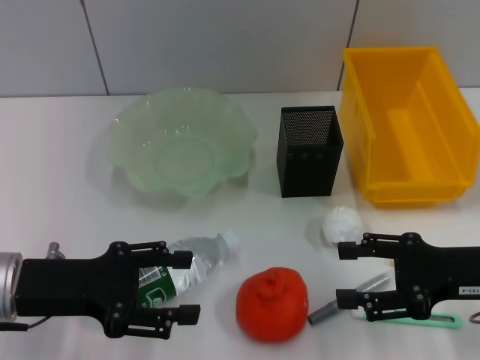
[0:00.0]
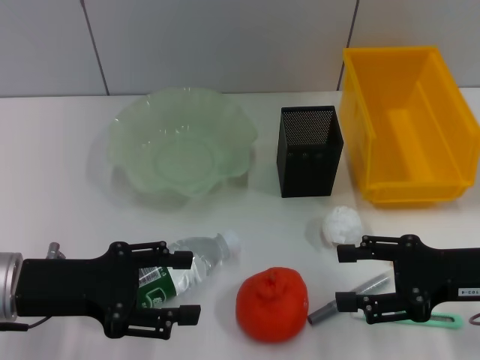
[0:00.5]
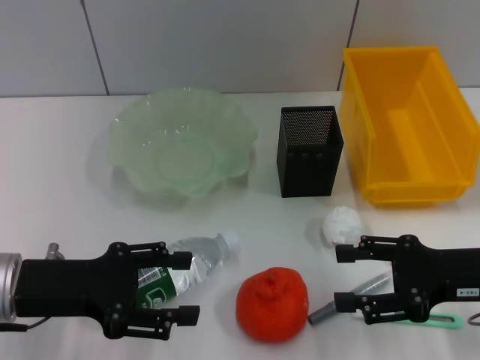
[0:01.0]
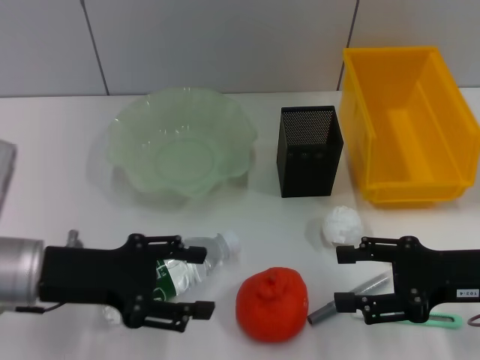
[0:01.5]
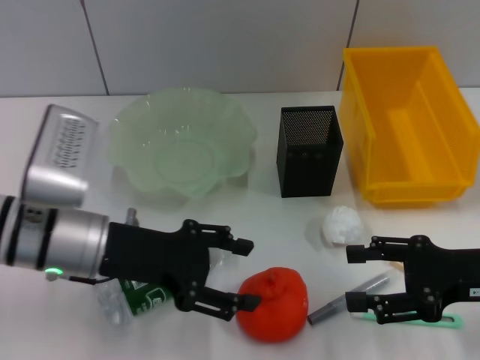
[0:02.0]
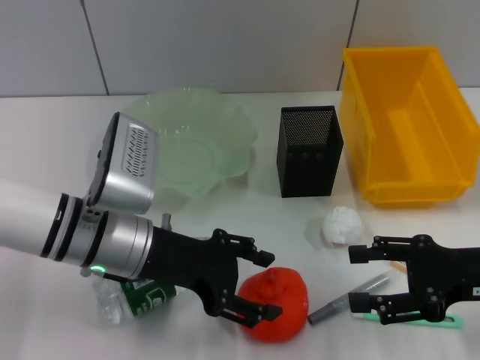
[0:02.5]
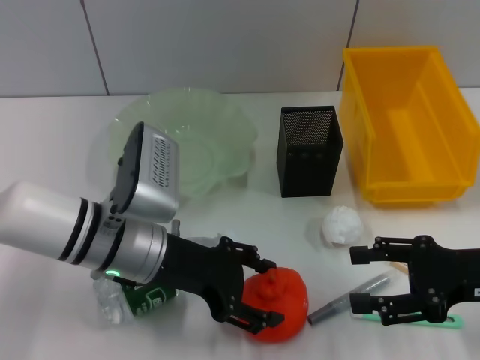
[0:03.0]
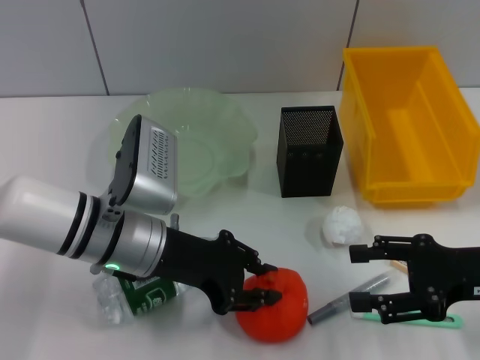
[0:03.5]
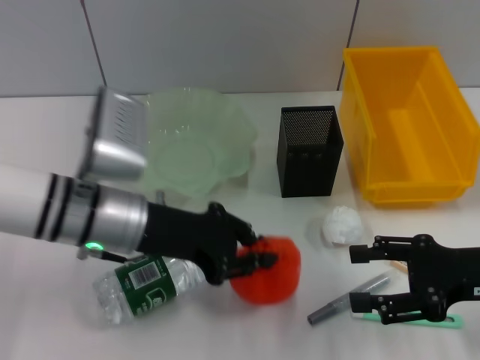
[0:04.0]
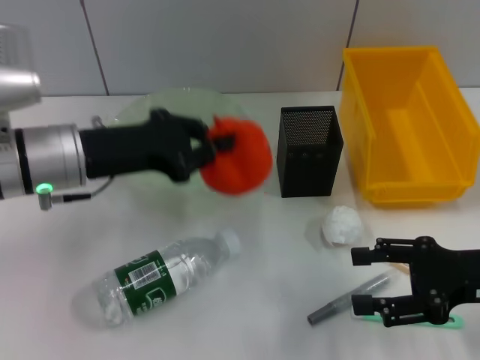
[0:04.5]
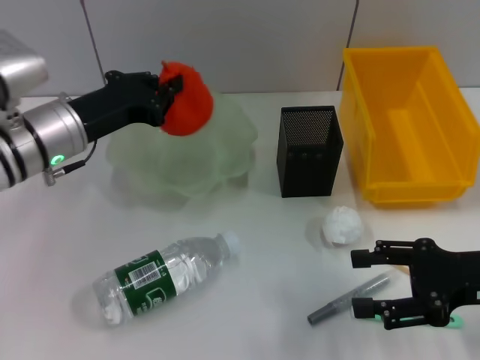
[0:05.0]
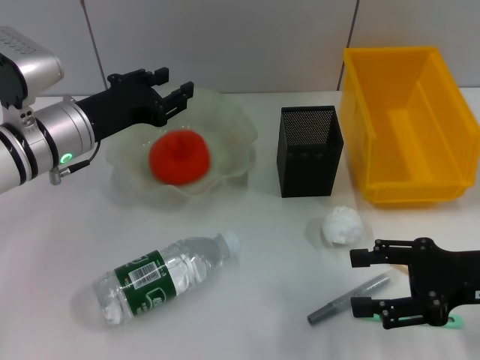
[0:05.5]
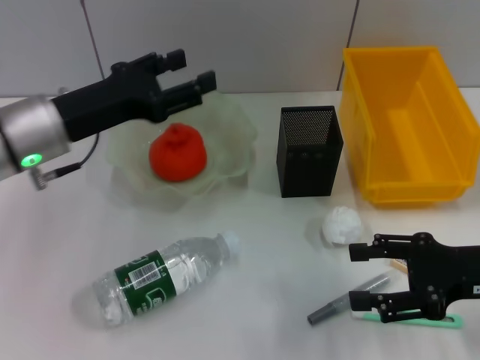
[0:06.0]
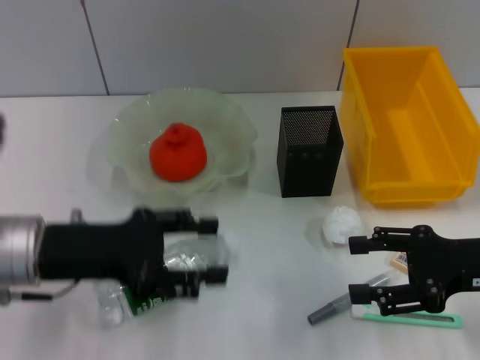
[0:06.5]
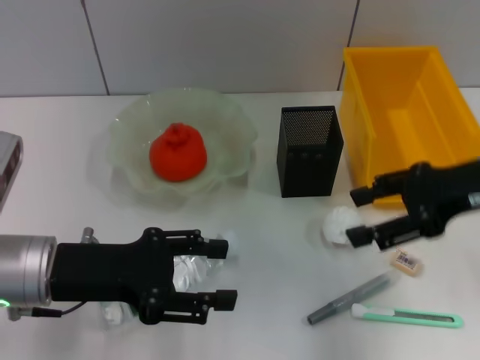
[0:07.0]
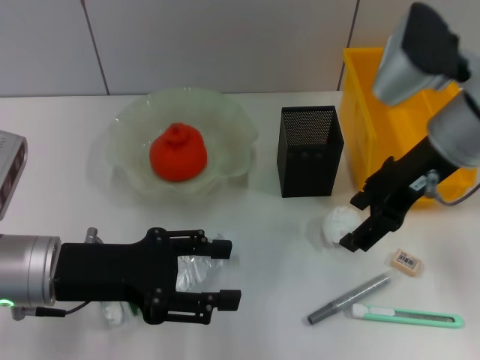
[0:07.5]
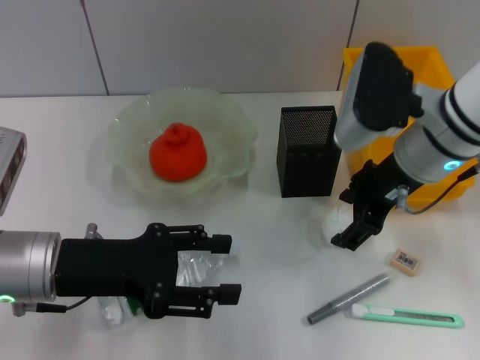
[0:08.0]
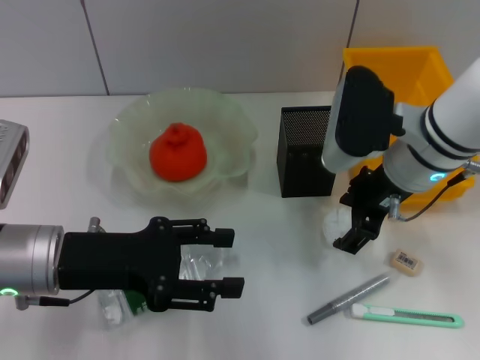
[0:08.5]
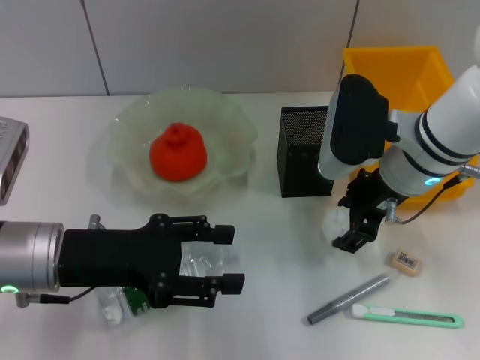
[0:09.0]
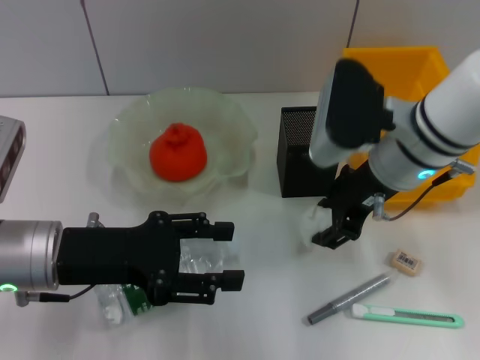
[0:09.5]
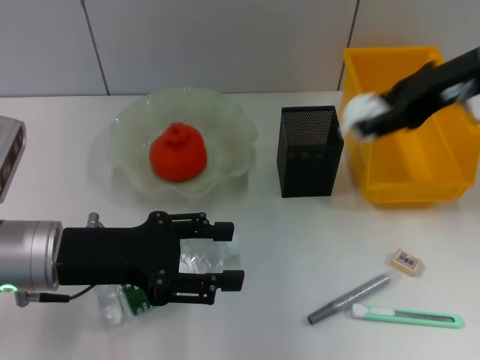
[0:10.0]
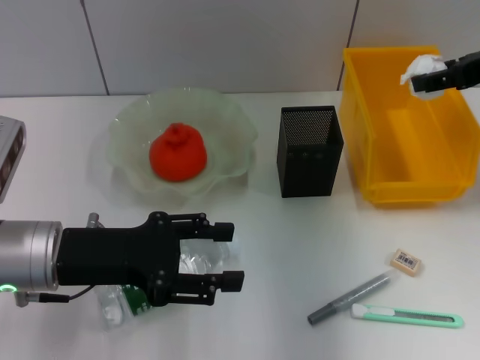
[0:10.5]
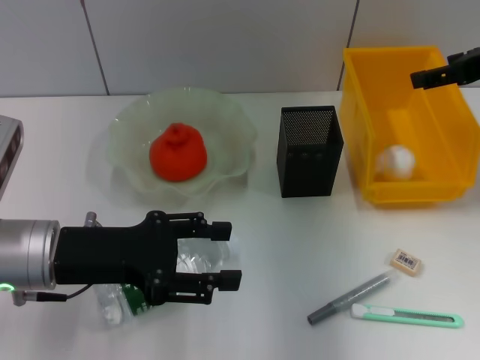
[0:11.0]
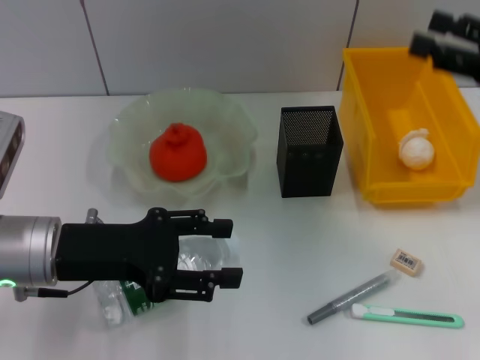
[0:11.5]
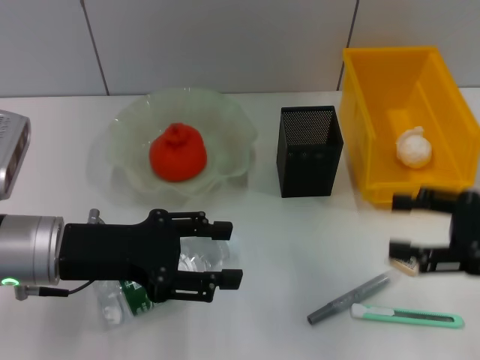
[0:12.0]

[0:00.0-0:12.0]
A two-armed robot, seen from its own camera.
Step, 0:00.0 to 0:03.5: Grab the orange with the left hand.
Step, 0:04.0 to 0:05.5: Place the orange into the fruit bowl with the left hand.
Step, 0:06.0 to 0:09.0: Grab the paper ball with the right hand.
Step, 0:09.5 to 0:11.5: Place the paper ball into the trash can with the right hand.
0:00.0 to 0:02.0: The left gripper shifts roughly 5 cm to the right.
0:02.0 to 0:04.0: The left gripper closes.
0:04.0 to 0:06.0: The left gripper travels to the left by about 5 cm, and opens up.
0:06.0 to 0:08.0: The left gripper moves backward, some 10 cm. The right gripper heads to the left, forward and upward, covering about 20 cm.
0:08.0 to 0:10.0: The right gripper shifts roughly 10 cm upward and to the right.
0:10.0 to 0:12.0: The right gripper is displaced downward, backward and to the right by some 20 cm, and opens up.

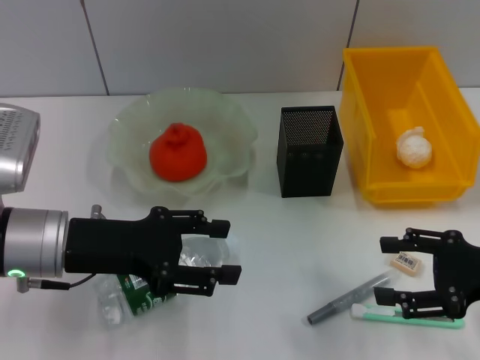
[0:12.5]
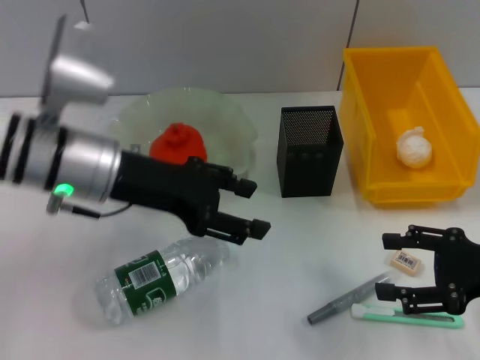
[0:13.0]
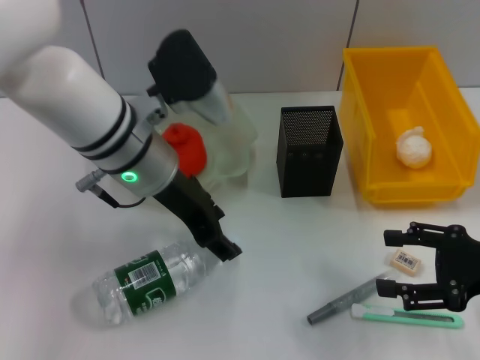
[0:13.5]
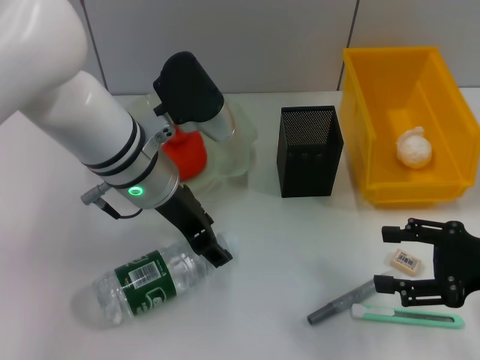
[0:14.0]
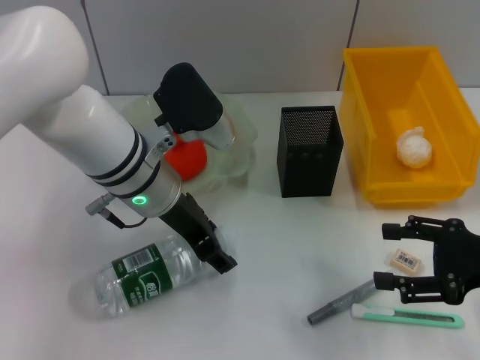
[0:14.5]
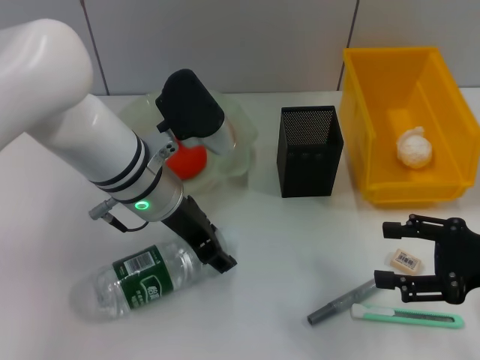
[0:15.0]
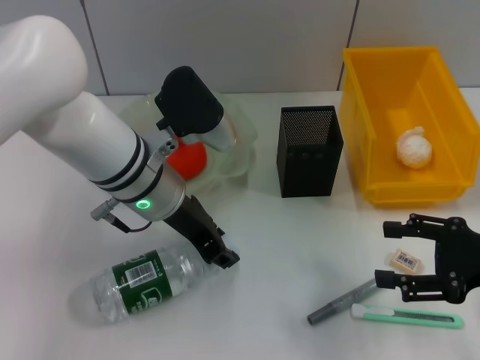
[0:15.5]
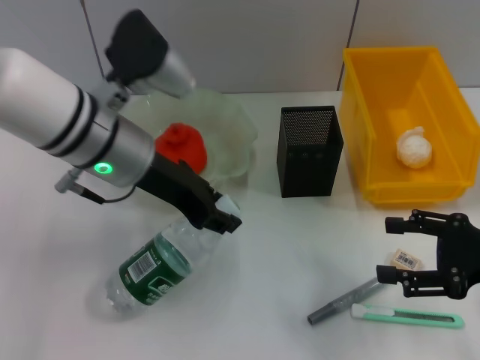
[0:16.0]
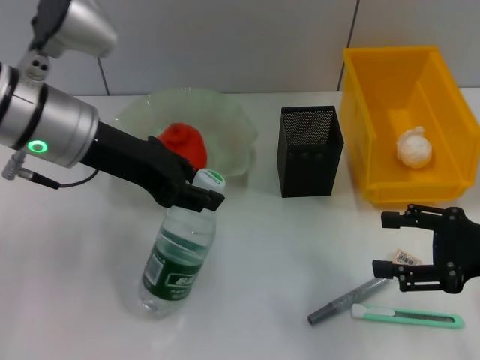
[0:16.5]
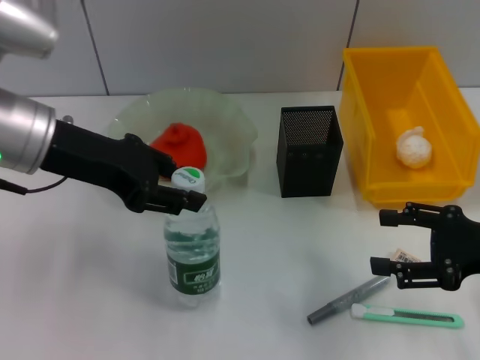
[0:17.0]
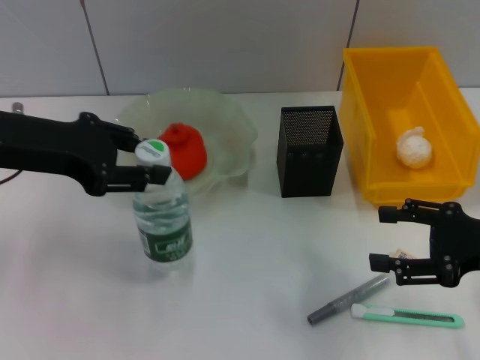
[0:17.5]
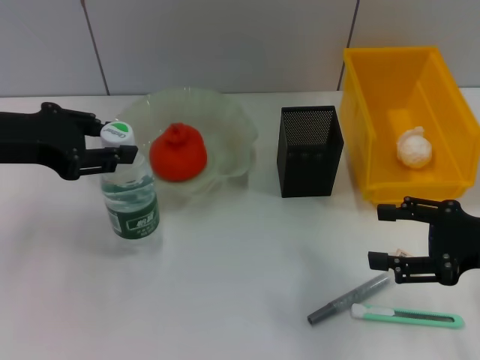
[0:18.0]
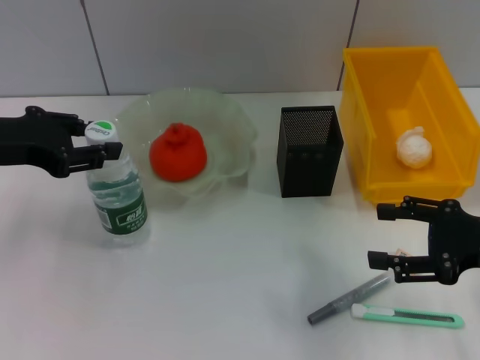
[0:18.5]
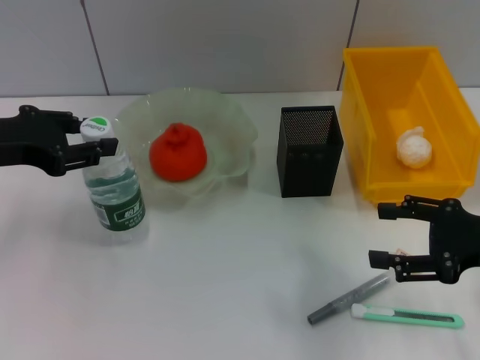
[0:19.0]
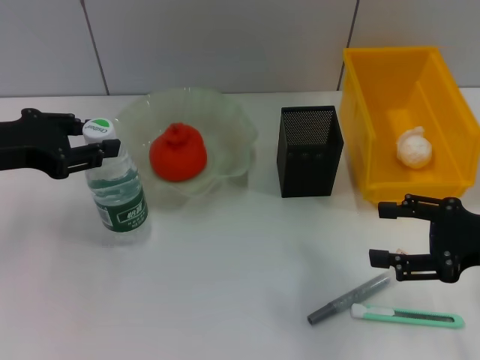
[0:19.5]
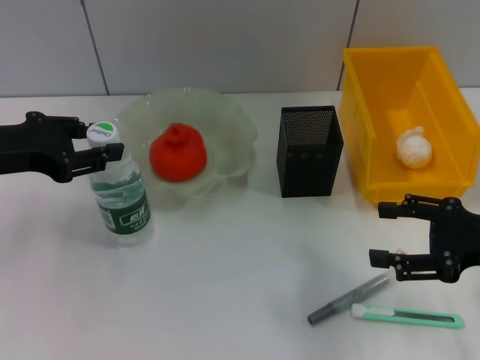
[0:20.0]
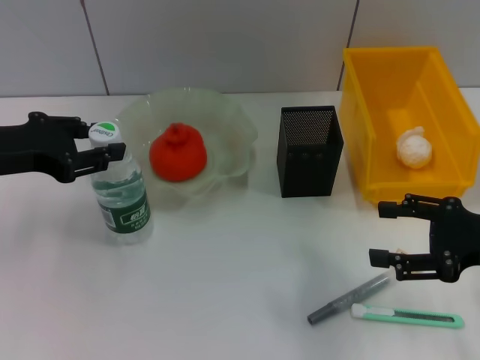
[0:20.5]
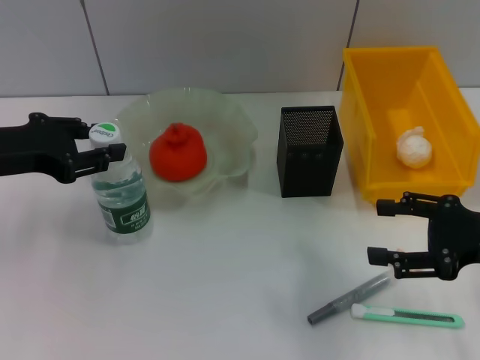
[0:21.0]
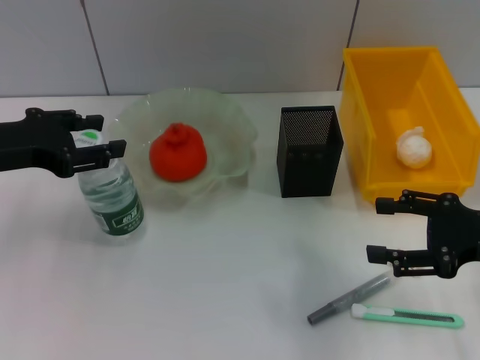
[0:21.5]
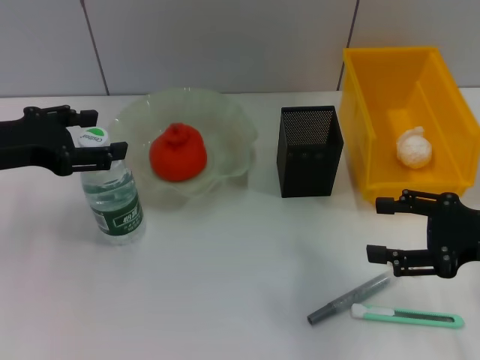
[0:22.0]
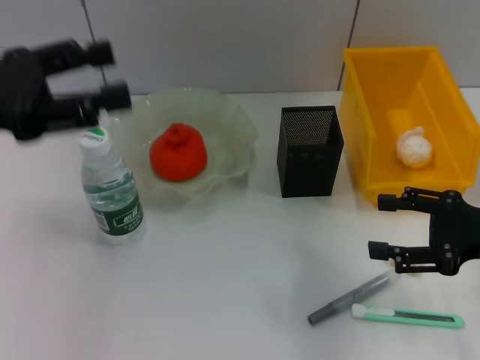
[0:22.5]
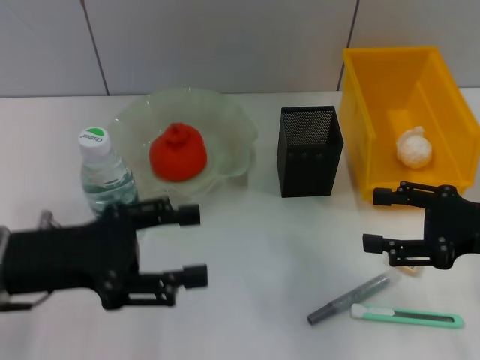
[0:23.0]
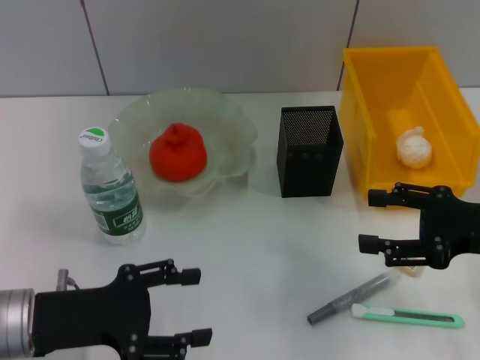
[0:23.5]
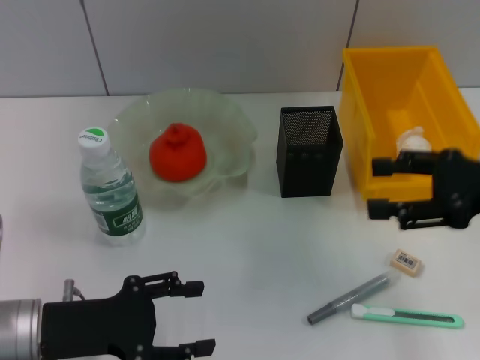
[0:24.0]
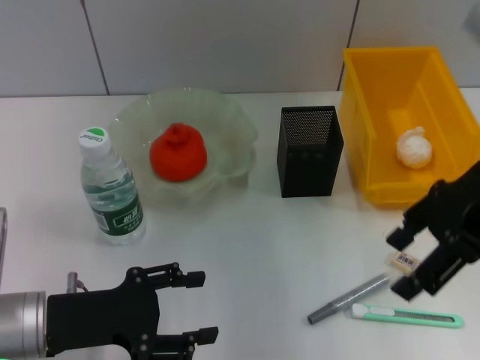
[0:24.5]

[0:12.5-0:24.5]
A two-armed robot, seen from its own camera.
Step, 0:12.5 to 0:15.0: Grab the water bottle with the left hand.
Step, 0:15.5 to 0:21.5: Place the water bottle on the table with the left hand.
0:12.5 to 0:14.5: The left gripper heads to the right and forward, covering approximately 15 cm.
0:14.5 to 0:16.5: The left gripper heads to the left and upward, covering approximately 10 cm.
0:16.5 to 0:18.5: The left gripper is displaced to the left by roughly 10 cm.
0:18.5 to 0:20.5: The grippers stay close to where they were, moving slightly.
0:20.5 to 0:22.5: The left gripper moves upward, about 5 cm, and opens.
0:22.5 to 0:24.5: The left gripper moves downward, some 15 cm; the right gripper heads upward and to the left, covering about 15 cm.

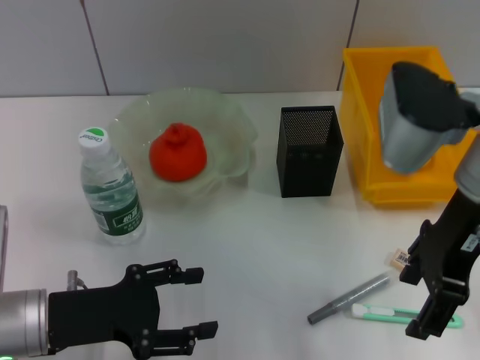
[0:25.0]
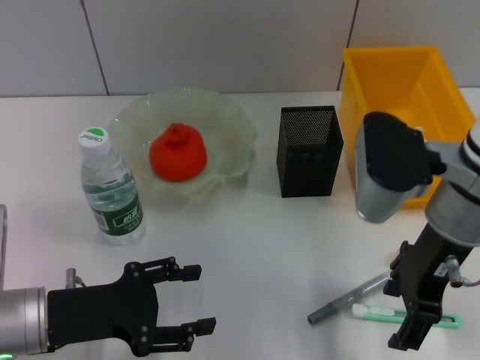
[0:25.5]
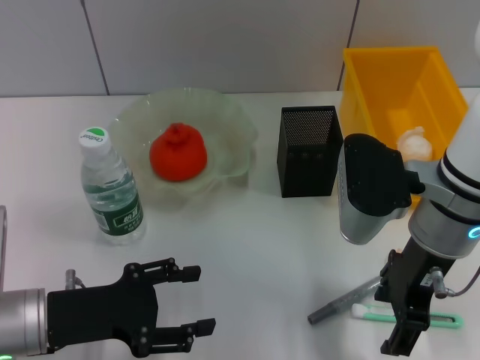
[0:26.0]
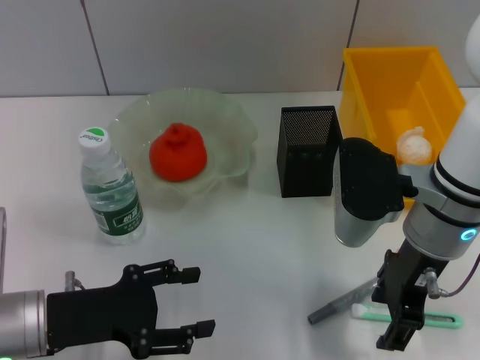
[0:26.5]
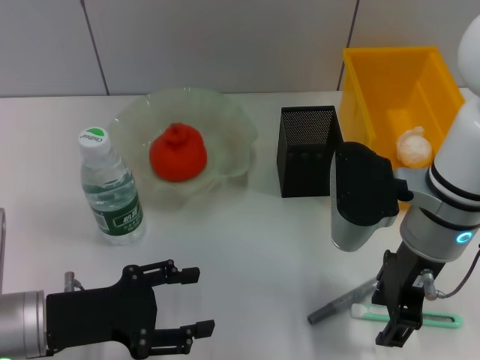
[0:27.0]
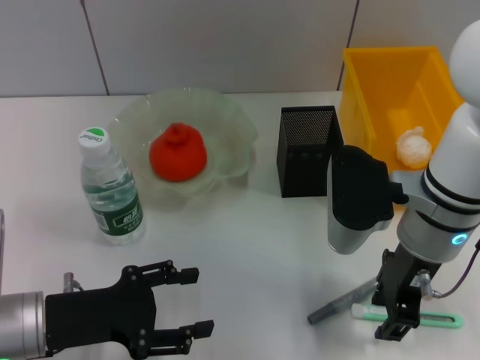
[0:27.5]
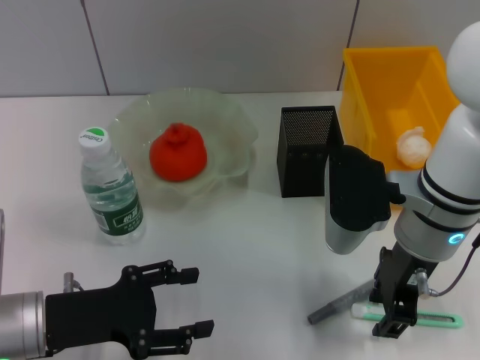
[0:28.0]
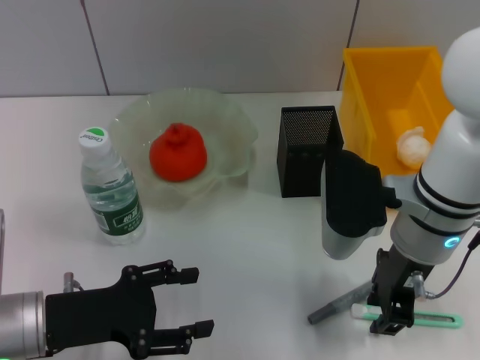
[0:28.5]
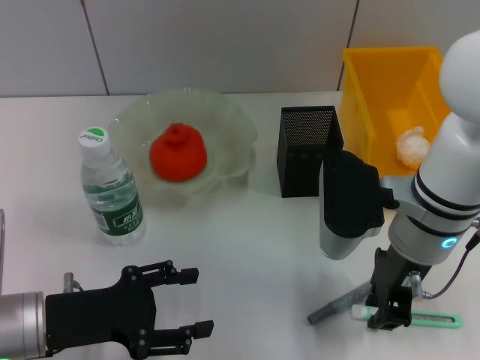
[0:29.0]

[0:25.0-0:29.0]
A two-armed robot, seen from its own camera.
0:25.0 to 0:27.0: The right gripper shifts roughly 5 cm downward.
0:27.0 to 0:29.0: The right gripper closes up.
